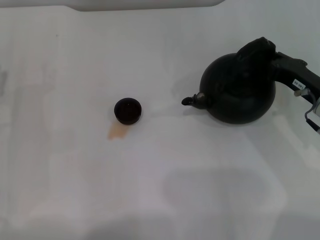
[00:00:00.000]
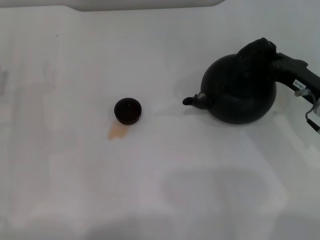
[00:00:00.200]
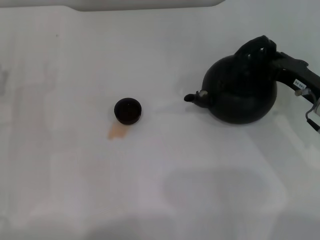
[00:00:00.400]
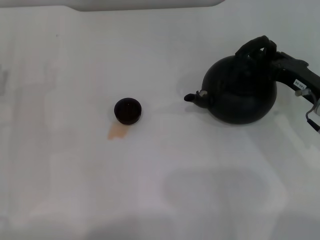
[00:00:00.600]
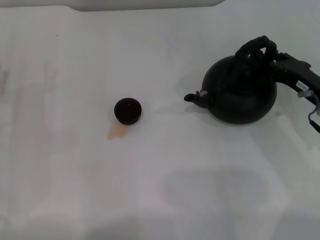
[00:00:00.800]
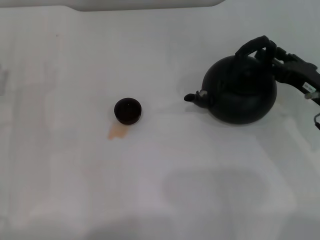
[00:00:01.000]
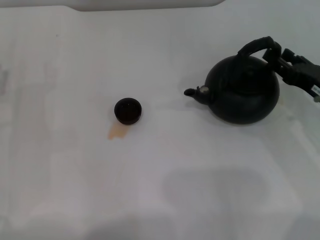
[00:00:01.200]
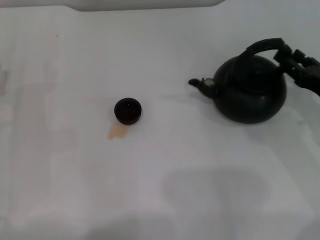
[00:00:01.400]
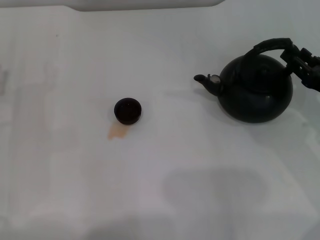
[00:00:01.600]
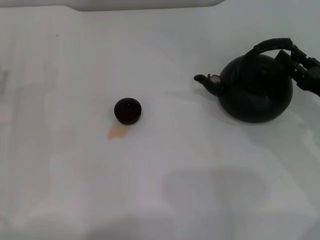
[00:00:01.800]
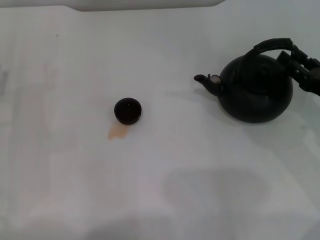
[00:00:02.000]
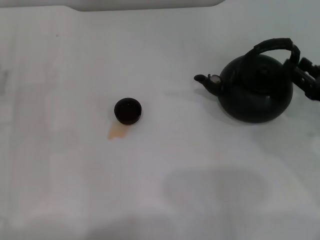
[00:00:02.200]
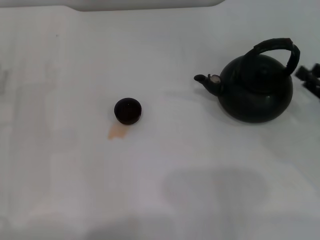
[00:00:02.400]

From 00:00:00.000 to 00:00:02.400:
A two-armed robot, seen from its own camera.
Task of the whole recording: Grasp the handle of the teapot with one hand and pour tea into the teacup.
Step, from 00:00:00.000 to 00:00:02.200: Put down the teapot with the right gripper.
From 00:00:00.000 to 00:00:01.200: The right gripper opens its fingers.
From 00:00:01.200 to 00:00:02.400: The right gripper changes place by approximately 5 cm.
